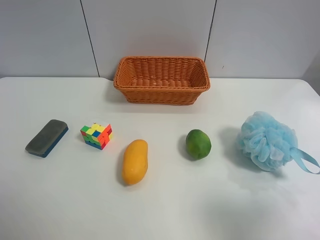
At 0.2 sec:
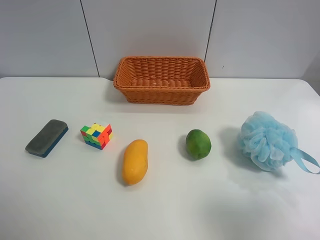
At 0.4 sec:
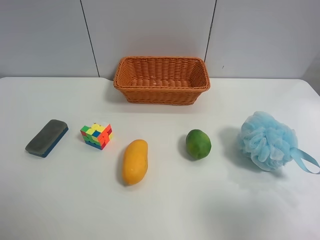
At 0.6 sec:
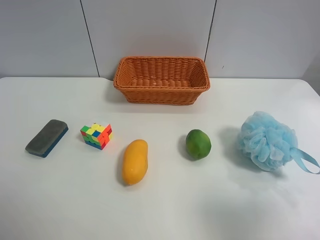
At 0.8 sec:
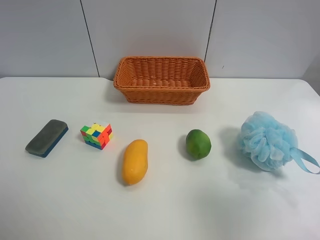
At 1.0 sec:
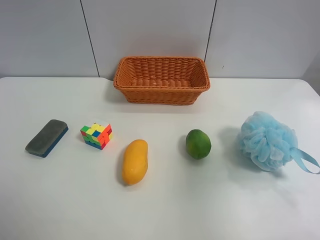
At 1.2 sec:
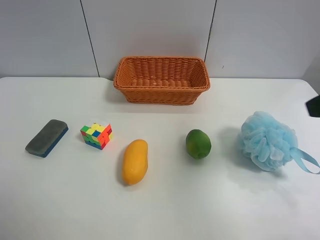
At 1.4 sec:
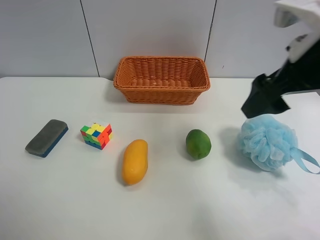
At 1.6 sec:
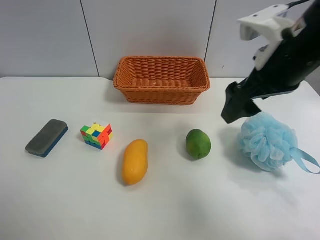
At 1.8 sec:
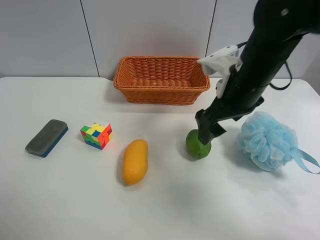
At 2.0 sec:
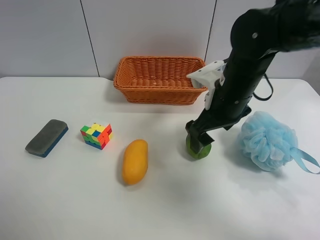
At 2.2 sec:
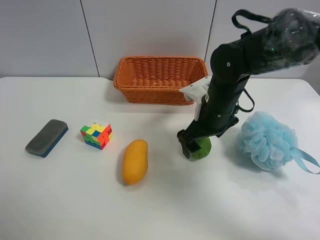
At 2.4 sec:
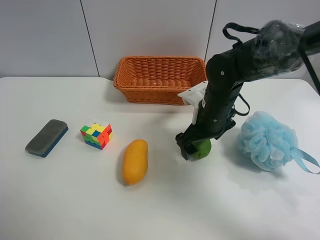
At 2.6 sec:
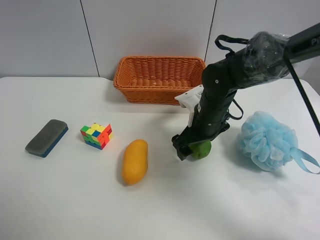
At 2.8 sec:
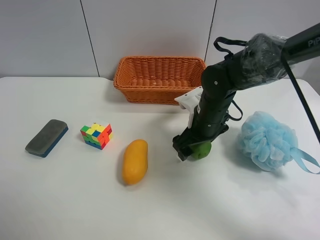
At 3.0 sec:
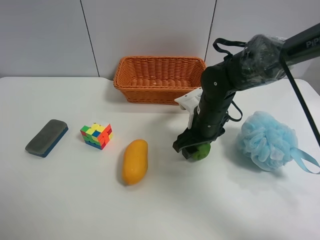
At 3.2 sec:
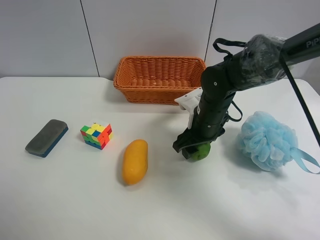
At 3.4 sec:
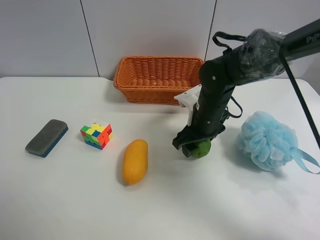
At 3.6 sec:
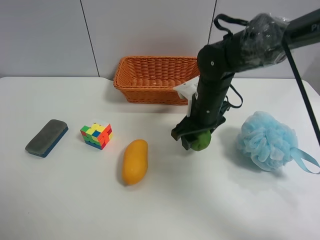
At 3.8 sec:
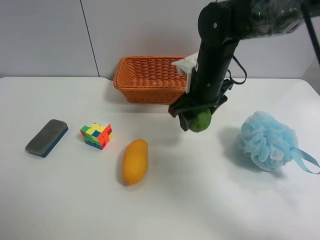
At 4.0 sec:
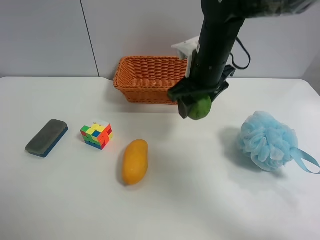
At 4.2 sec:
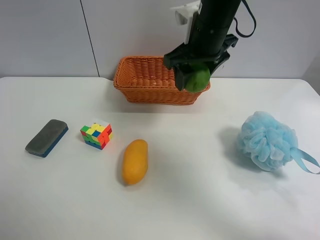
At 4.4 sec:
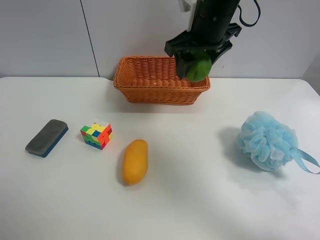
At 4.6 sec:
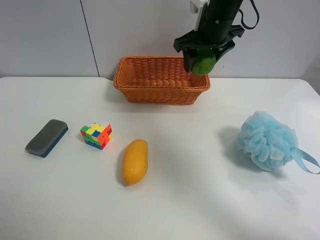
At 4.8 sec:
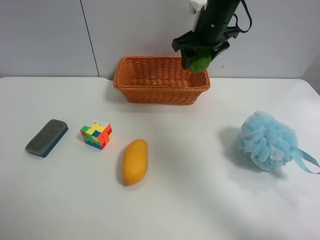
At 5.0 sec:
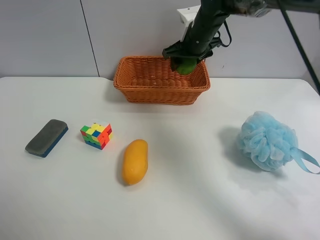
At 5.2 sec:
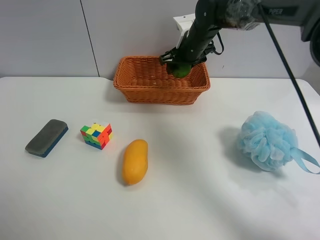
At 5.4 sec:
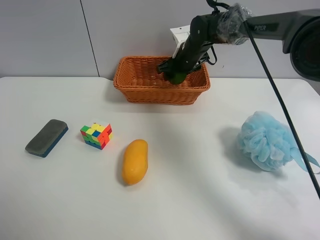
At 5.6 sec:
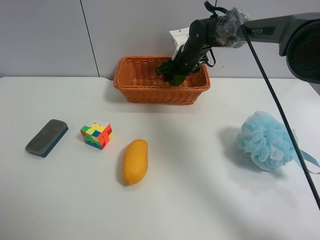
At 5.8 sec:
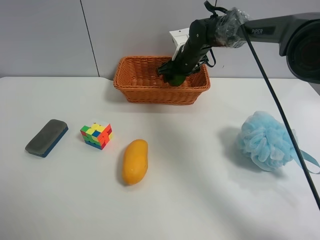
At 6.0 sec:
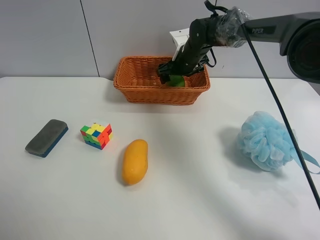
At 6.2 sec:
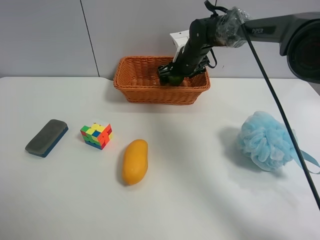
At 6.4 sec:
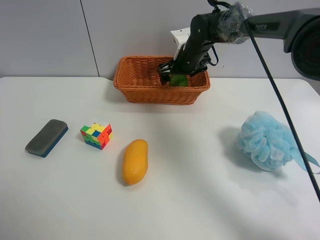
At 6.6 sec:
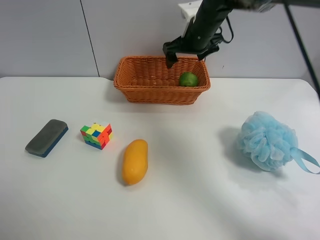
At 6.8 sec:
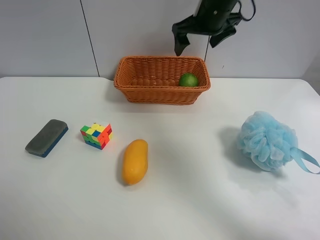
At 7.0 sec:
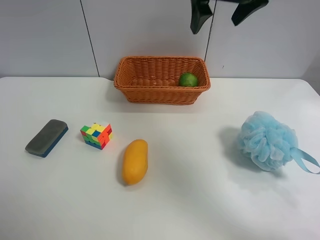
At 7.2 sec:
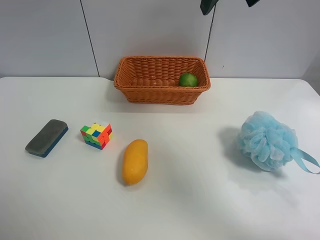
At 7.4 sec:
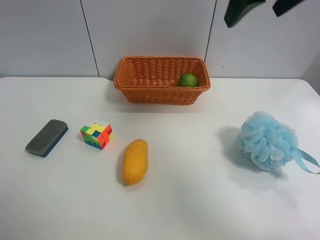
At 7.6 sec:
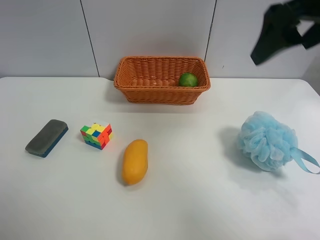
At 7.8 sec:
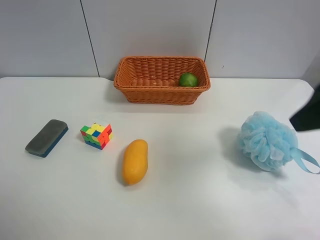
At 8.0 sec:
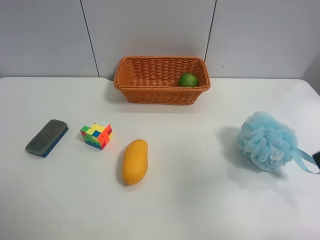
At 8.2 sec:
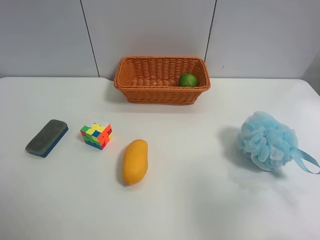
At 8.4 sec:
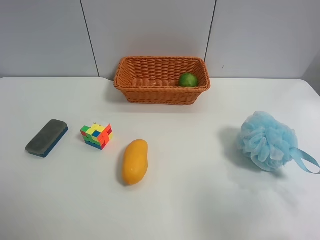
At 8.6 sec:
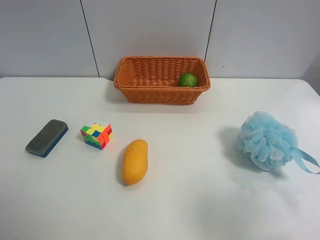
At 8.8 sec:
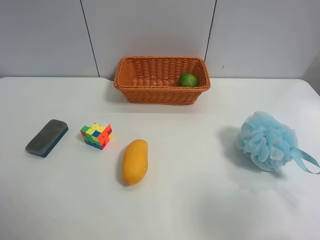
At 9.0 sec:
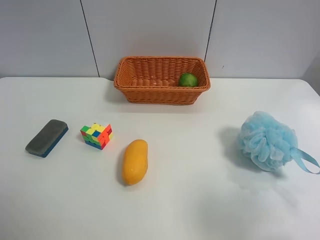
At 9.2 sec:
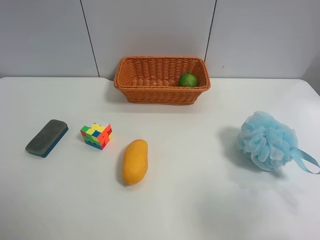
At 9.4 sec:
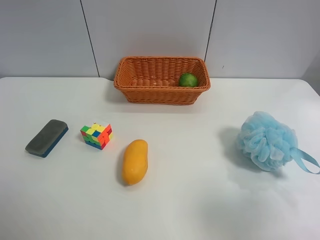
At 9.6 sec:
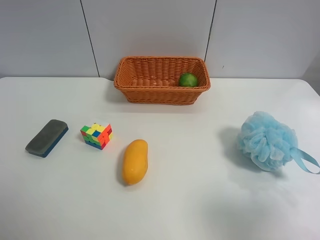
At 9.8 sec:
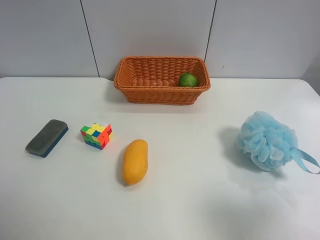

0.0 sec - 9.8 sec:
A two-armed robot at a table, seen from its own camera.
Task of the whole recording: Randomly grab green lemon or mangoes from the table and put them in a basket.
Step, 0.0 sec - 3.2 sec: Grasp the Lemon with the right gripper.
Step, 3.4 sec - 6.6 sec: Place the Lemon into the basket with the right gripper.
0.0 sec - 1.4 sec: The right gripper moves forward, approximately 20 cm.
1.4 sec - 2.8 sec: The right gripper heads downward, forward and to the left, covering about 25 cm.
2.8 sec - 4.2 sec: The right gripper travels upward by roughly 15 cm, and closes up.
4.2 sec - 5.6 sec: The right gripper goes roughly 20 cm forward and downward.
5.6 sec - 7.0 sec: The right gripper travels upward and backward by roughly 25 cm, and opens its fingers.
7.0 sec - 8.4 sec: The right gripper travels backward by approximately 35 cm.

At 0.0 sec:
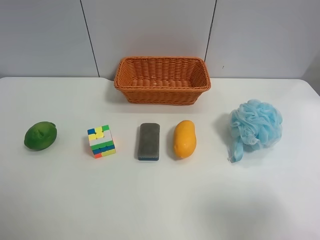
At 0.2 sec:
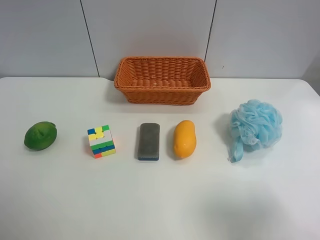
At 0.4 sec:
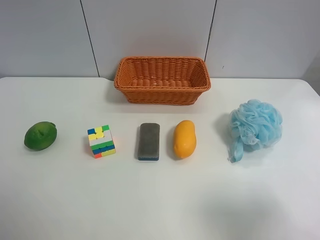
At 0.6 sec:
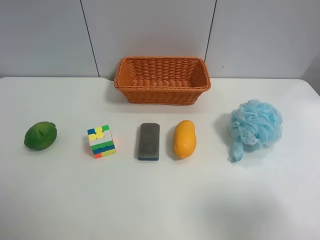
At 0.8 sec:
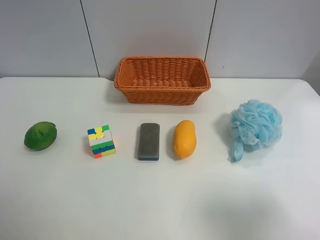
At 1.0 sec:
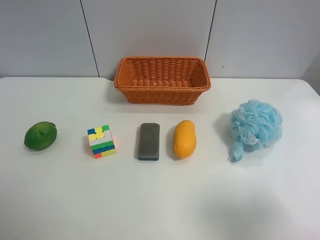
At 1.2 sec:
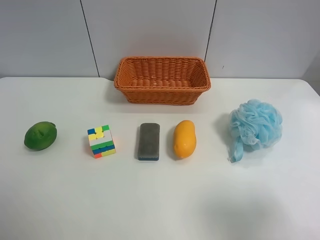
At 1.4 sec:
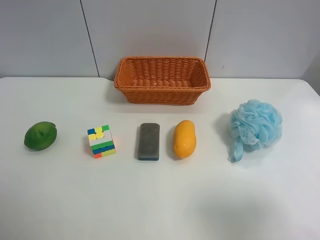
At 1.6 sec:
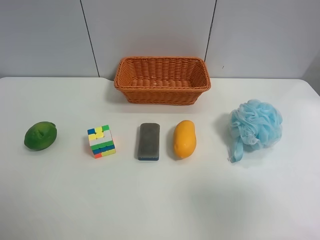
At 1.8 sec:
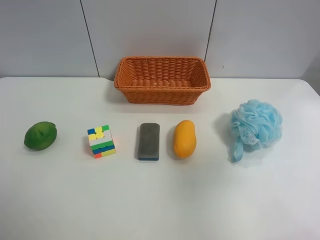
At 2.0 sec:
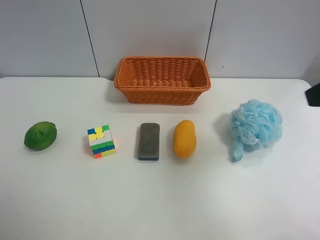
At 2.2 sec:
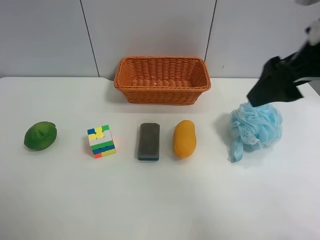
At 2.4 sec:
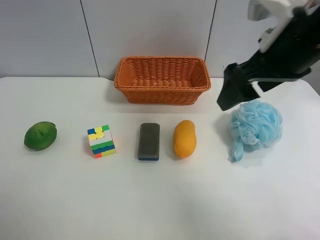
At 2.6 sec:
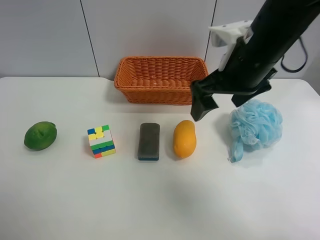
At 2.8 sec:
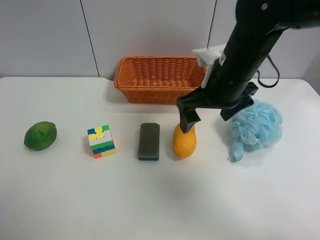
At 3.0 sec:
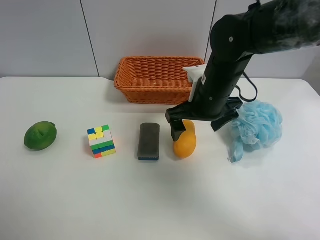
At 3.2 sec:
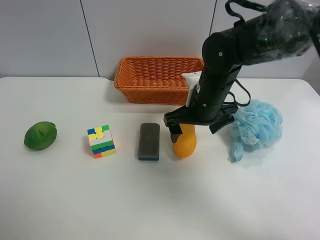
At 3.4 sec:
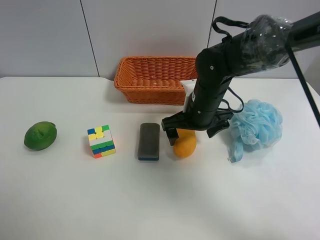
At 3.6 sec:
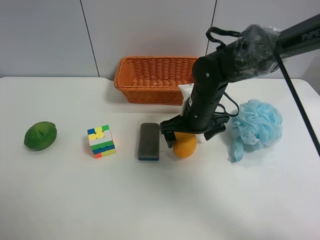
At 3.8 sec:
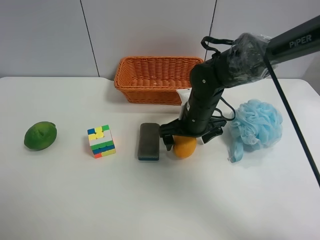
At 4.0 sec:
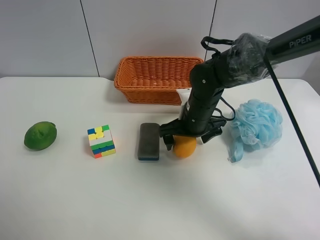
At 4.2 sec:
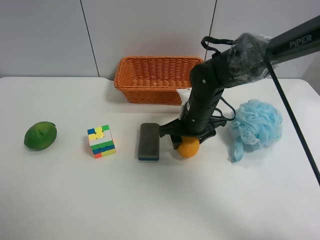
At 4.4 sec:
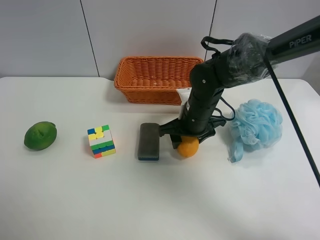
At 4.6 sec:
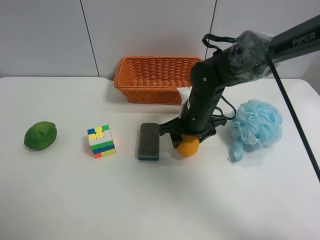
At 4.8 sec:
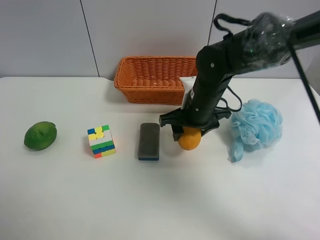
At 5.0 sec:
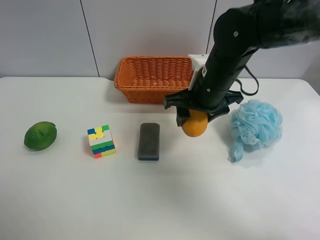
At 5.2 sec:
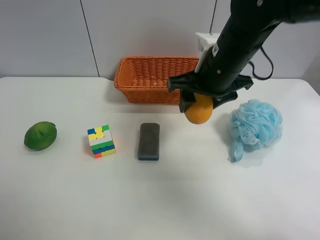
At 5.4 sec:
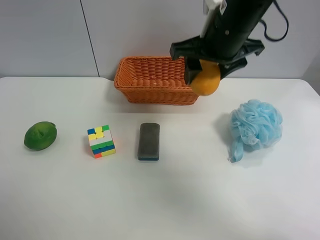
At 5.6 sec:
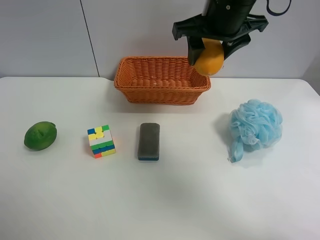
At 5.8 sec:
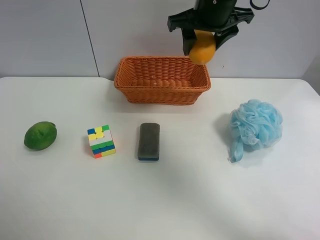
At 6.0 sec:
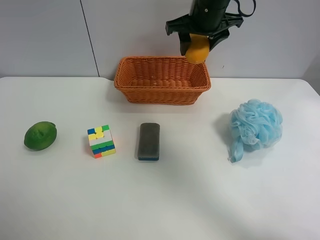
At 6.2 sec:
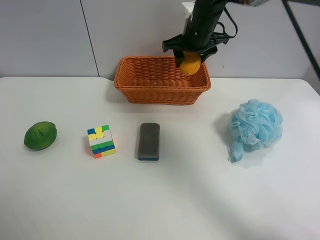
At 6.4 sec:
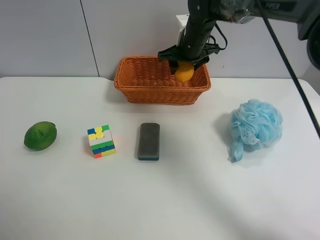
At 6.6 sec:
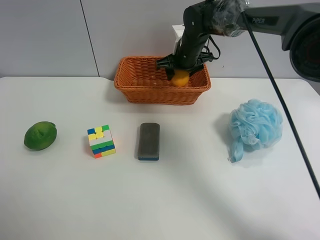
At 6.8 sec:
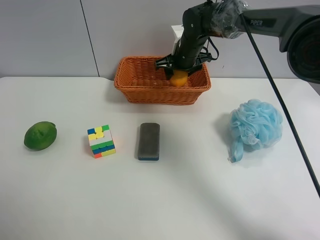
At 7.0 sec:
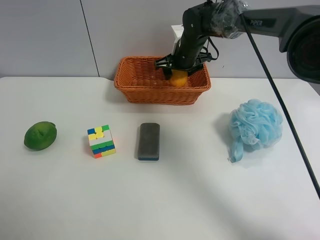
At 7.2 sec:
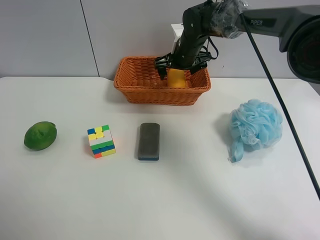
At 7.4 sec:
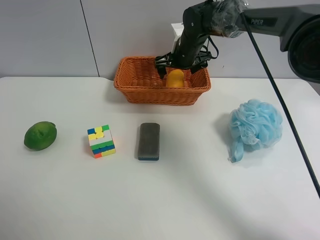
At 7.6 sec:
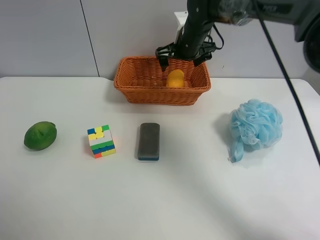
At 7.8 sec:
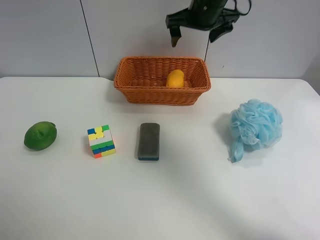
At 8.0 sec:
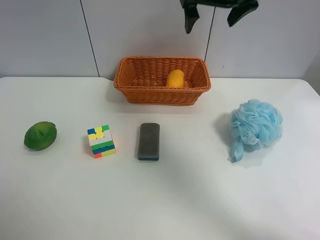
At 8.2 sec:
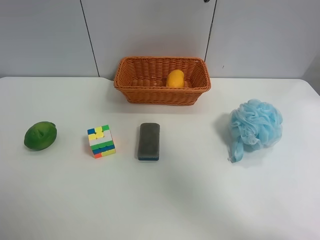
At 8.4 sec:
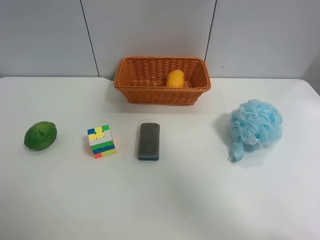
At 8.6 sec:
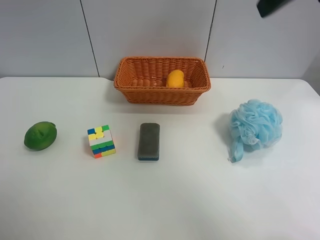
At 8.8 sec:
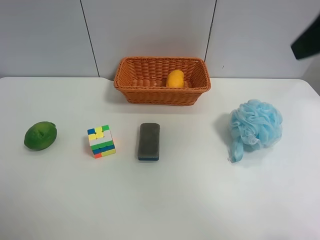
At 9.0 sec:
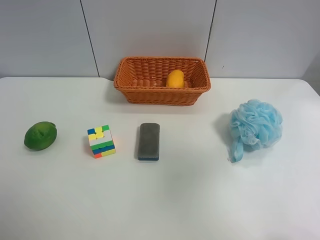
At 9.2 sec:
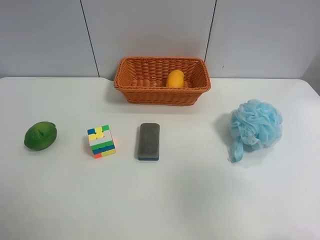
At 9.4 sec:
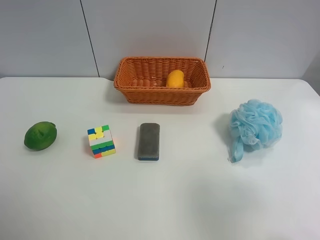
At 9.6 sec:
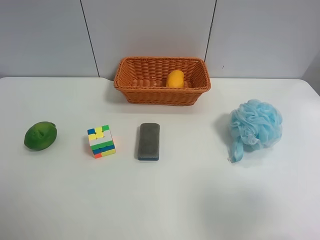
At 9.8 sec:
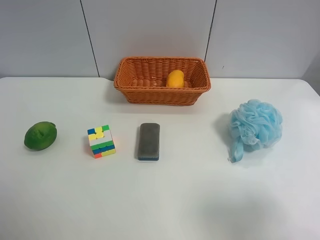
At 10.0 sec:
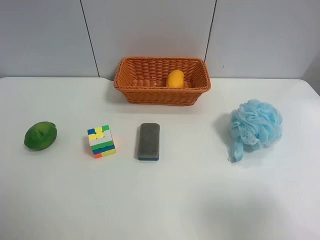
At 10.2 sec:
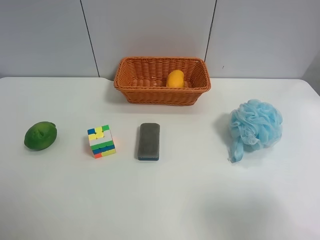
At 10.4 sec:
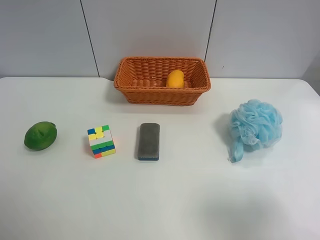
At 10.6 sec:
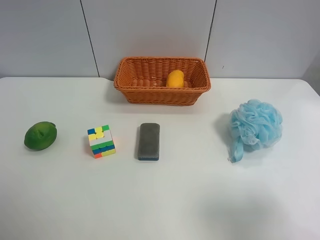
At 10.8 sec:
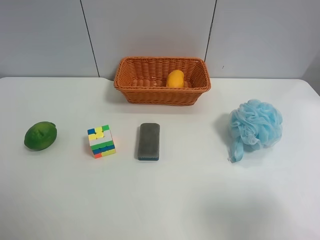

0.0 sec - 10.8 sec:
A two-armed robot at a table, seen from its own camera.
Task of the whole recording: Randomly grab green lemon or mangoes from the table and put them in a basket.
Step, 0.0 sec - 4.4 sec: Grasp the mango with the right gripper.
Step, 4.6 sec - 7.6 sec: Place the mango into the basket with the right gripper.
0.0 sec - 1.6 sec: The right gripper is displaced upward by approximately 5 cm.
1.6 sec - 3.0 sec: The right gripper travels forward, to the left and downward by approximately 35 cm.
3.0 sec - 4.6 sec: The right gripper moves downward, about 5 cm, and closes up.
4.6 sec - 6.2 sec: The right gripper heads forward and upward, covering about 20 cm.
6.2 sec - 7.8 sec: The right gripper moves upward, roughly 10 cm, and opens up.
7.8 sec - 9.2 sec: The right gripper heads backward and to the right, covering some 40 cm.
9.2 sec - 10.8 sec: The right gripper is displaced downward and backward by roughly 10 cm.
